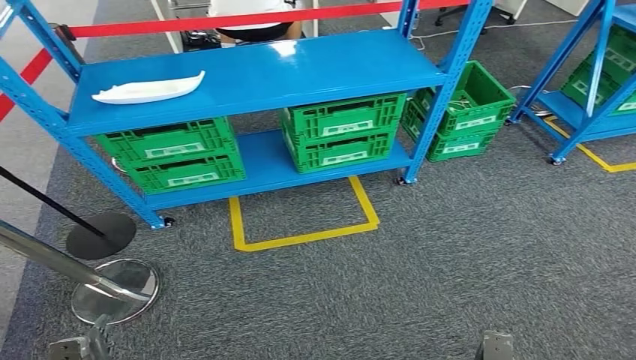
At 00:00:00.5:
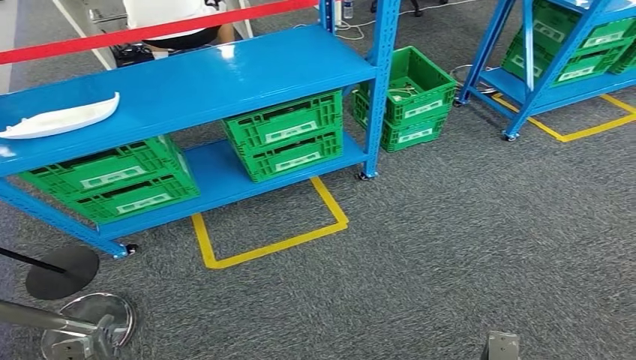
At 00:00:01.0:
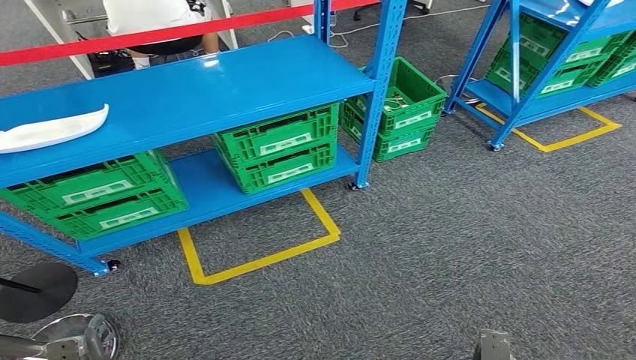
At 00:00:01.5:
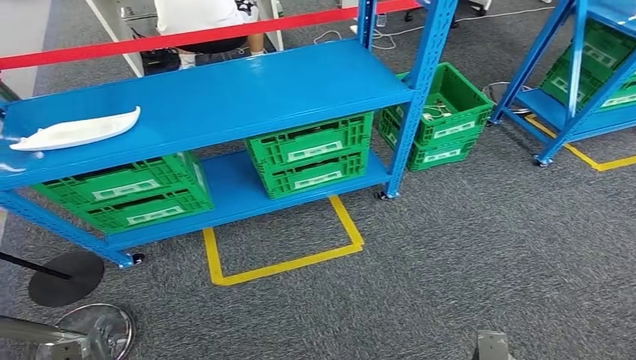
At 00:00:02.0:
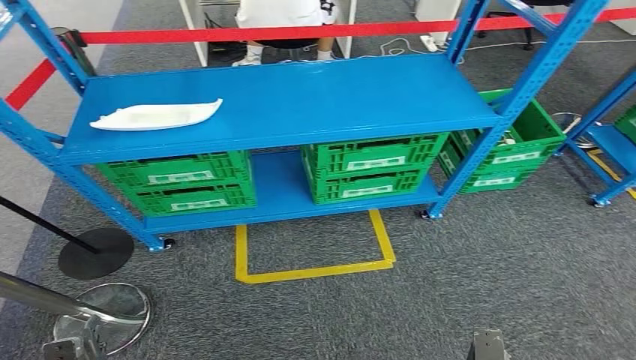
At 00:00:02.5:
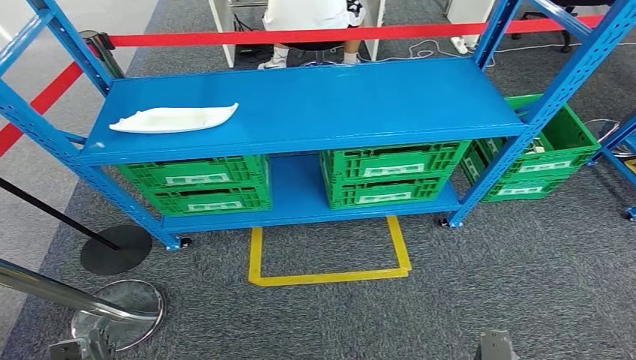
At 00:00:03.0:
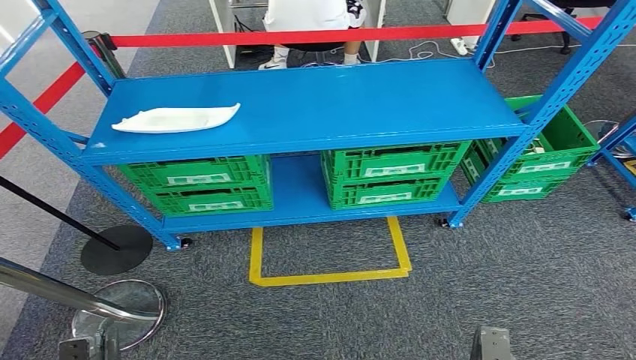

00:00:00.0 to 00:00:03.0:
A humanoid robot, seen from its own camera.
Step, 00:00:00.0 to 00:00:03.0: Return to the initial position at the workbench.
